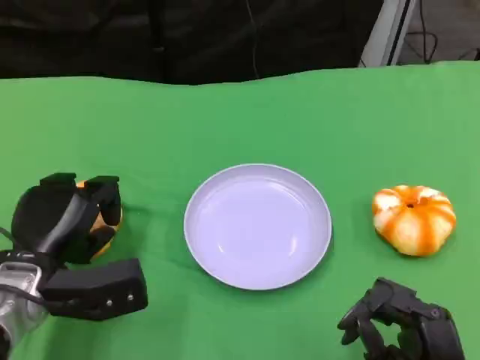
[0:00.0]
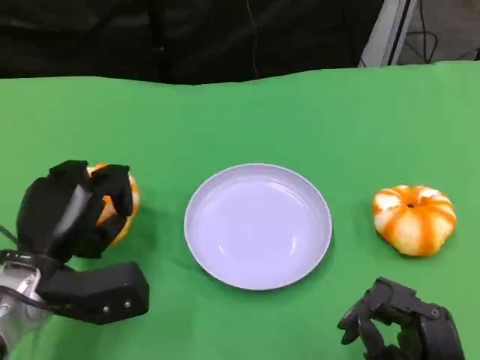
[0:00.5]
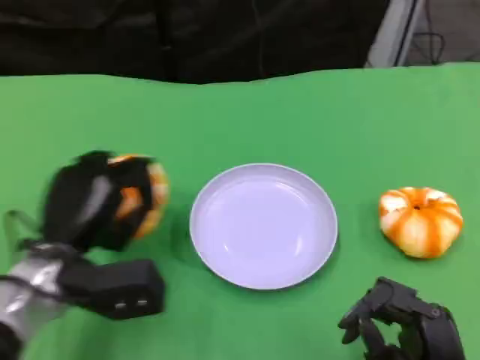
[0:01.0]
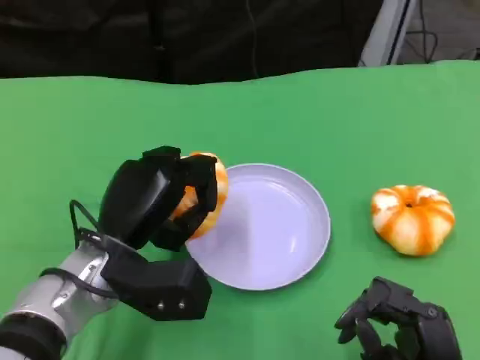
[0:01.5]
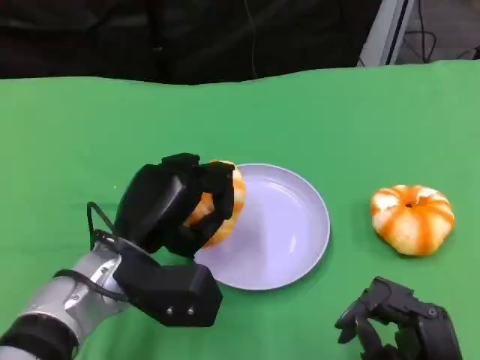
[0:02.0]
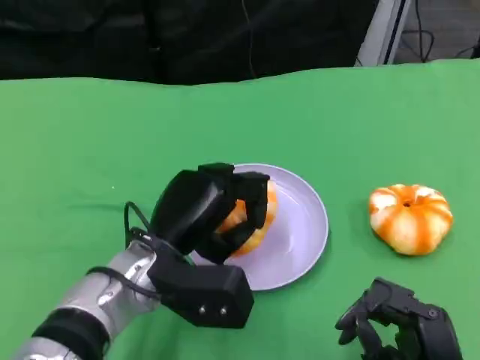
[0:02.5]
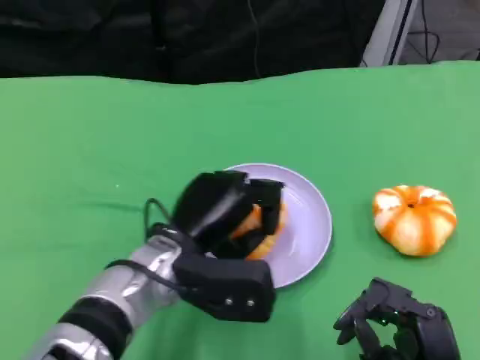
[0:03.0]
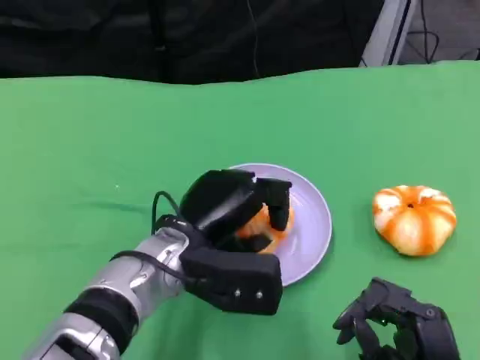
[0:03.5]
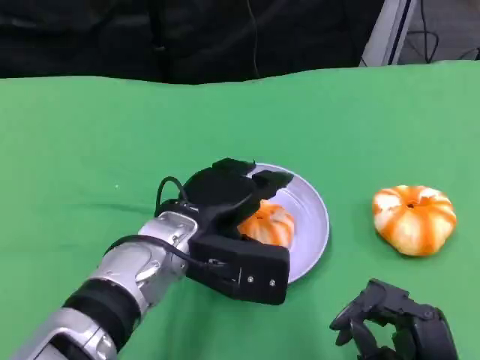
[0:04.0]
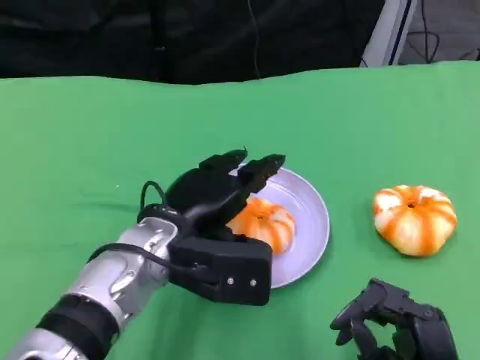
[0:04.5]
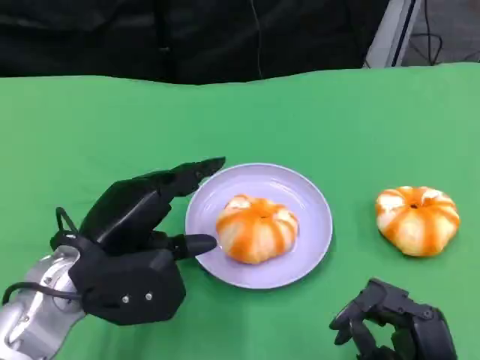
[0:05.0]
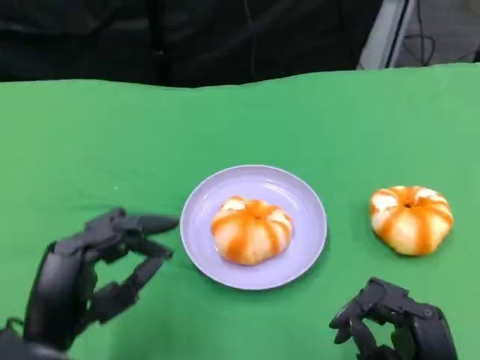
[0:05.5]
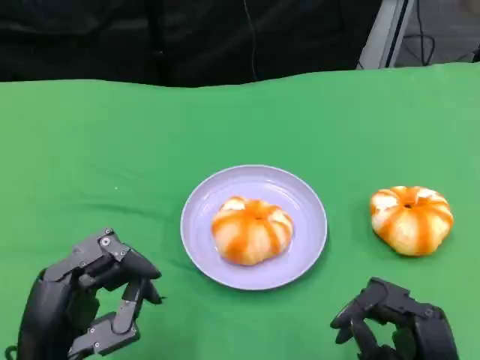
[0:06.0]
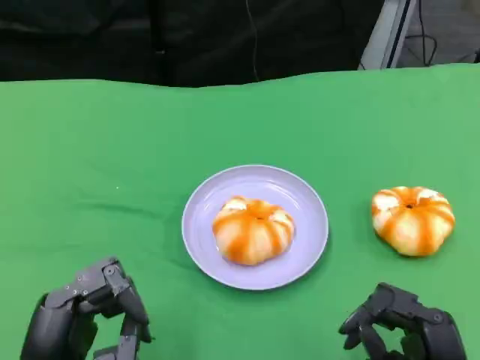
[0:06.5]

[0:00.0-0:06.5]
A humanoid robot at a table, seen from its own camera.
Task of the whole recording: Grasp the bread from the table and place it into the plate.
0:00.0 to 0:02.0: The left hand goes roughly 10 cm to the right.
0:04.5 to 0:06.5: The left hand goes some 20 cm backward and to the left.

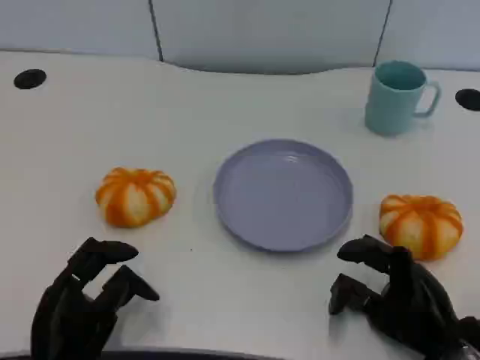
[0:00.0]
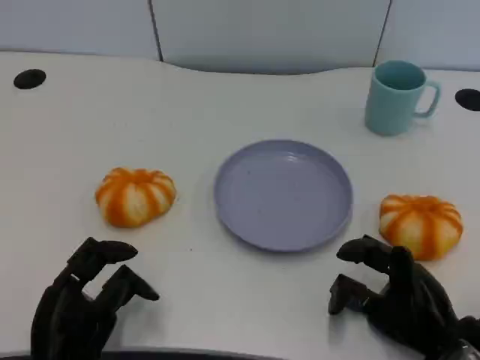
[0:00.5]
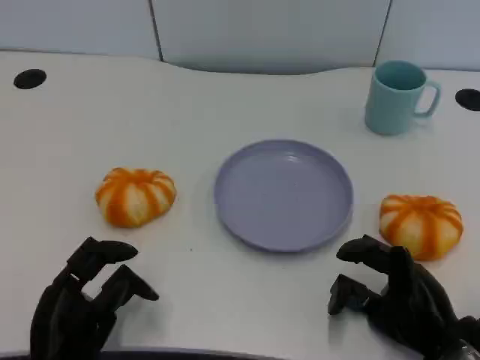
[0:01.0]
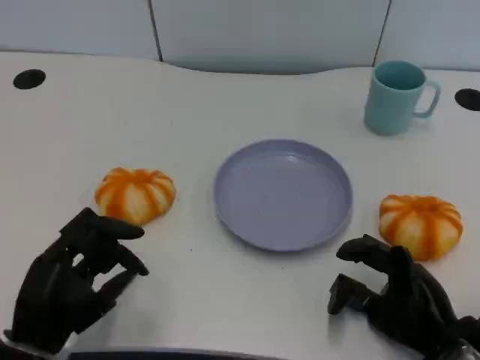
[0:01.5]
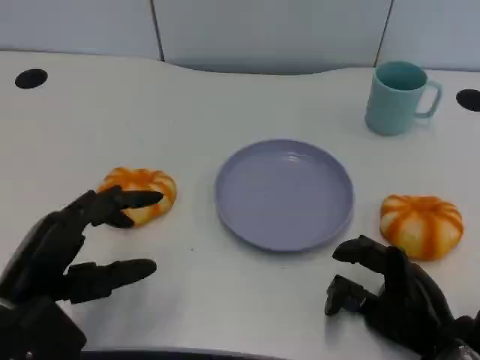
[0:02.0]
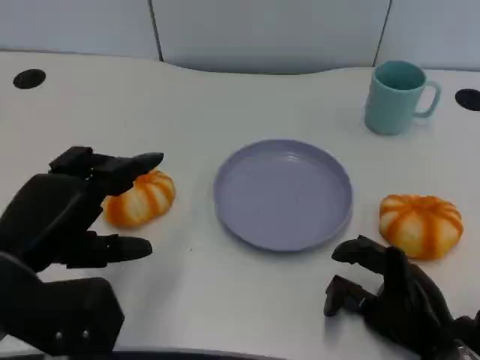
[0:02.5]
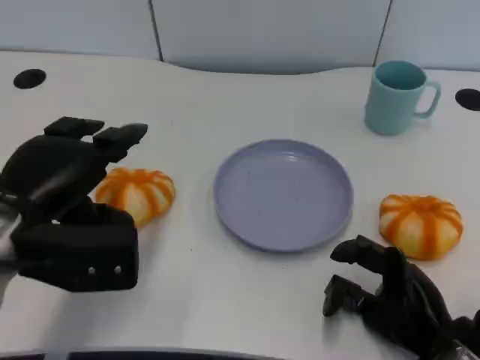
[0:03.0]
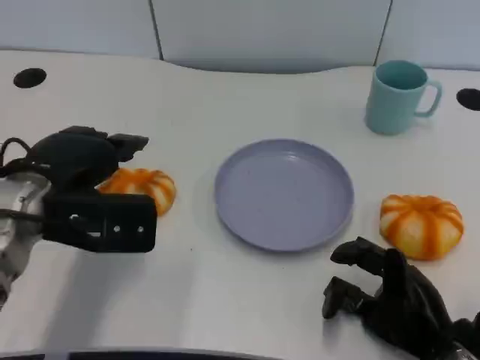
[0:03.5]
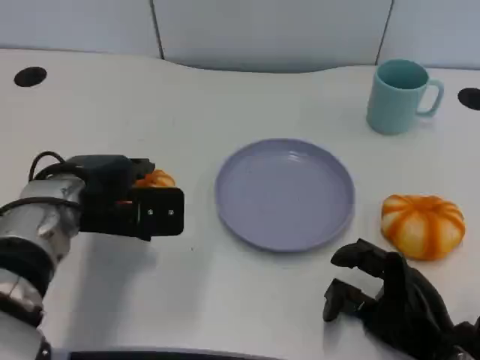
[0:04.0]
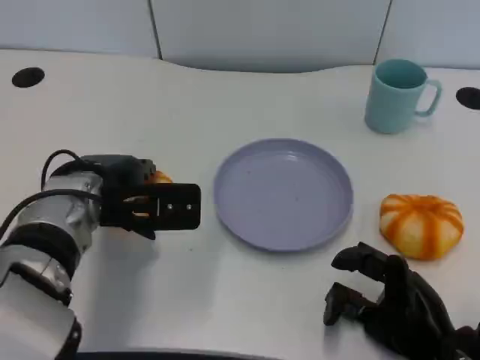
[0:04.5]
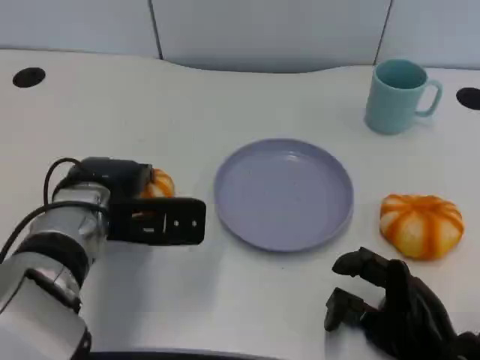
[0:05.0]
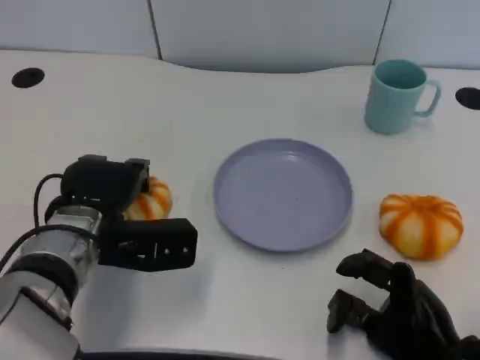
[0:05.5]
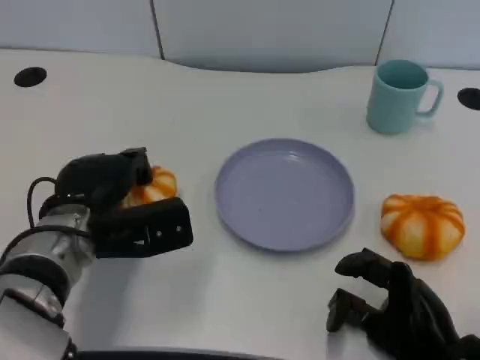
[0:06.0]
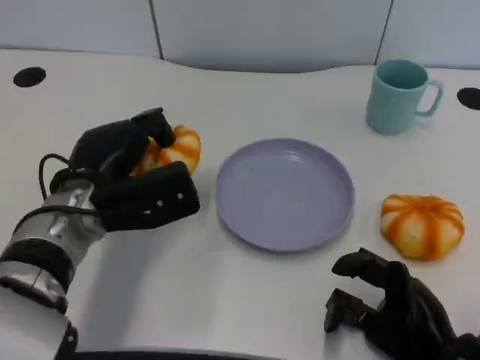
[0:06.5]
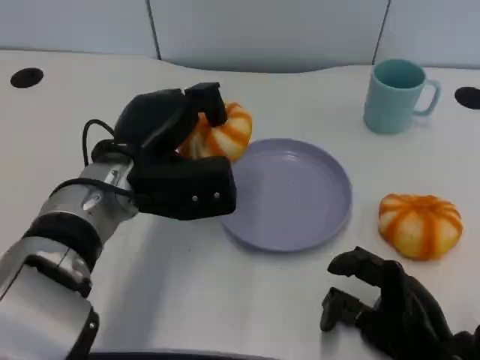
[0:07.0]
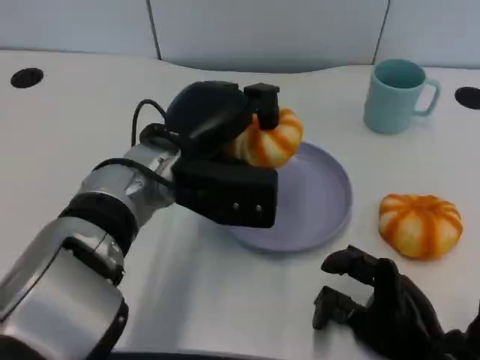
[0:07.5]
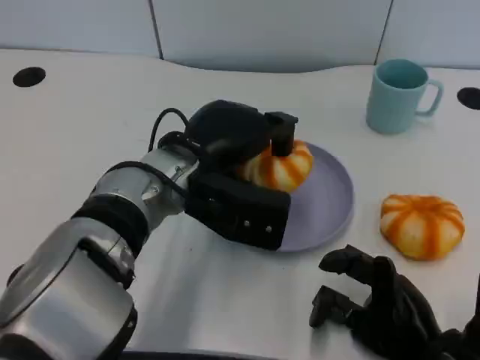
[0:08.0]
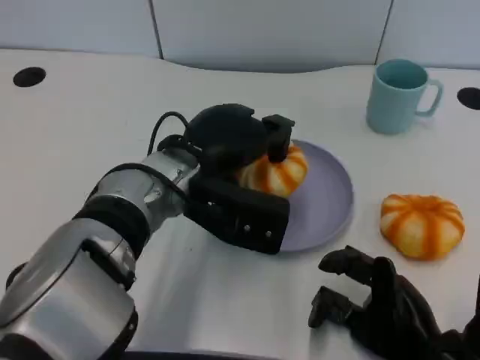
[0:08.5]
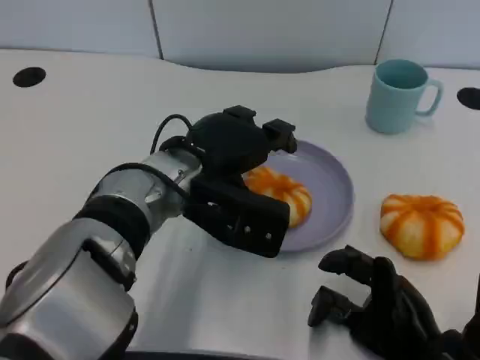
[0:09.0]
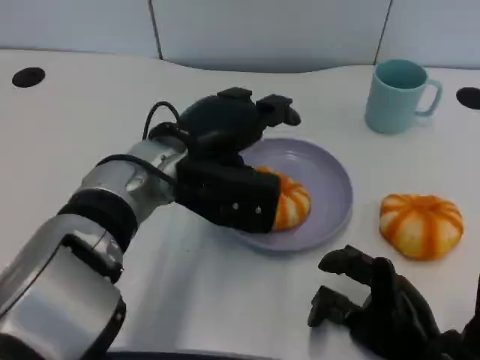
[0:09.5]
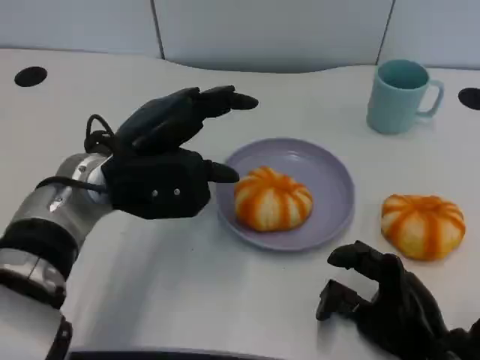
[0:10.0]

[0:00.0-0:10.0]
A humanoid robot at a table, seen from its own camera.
Task of the whole recording: Grasp the bread from the table and place it into the plate.
0:00.0 to 0:02.0: The left hand shifts some 10 cm upward.
0:02.0 to 0:04.0: The left hand is displaced forward and to the right by roughly 15 cm.
0:06.0 to 0:08.0: The left hand moves to the right and upward, approximately 10 cm.
0:08.0 to 0:10.0: The left hand is displaced to the left by approximately 5 cm.

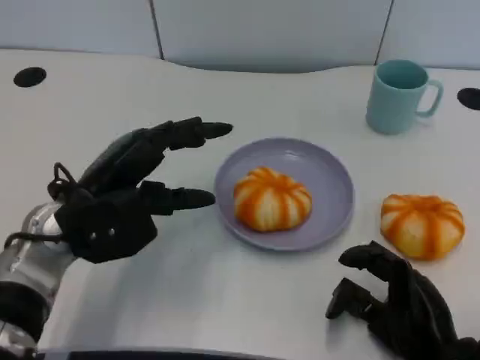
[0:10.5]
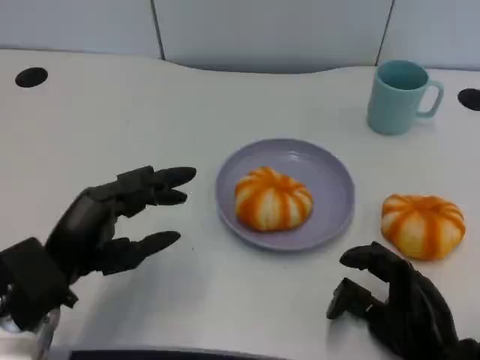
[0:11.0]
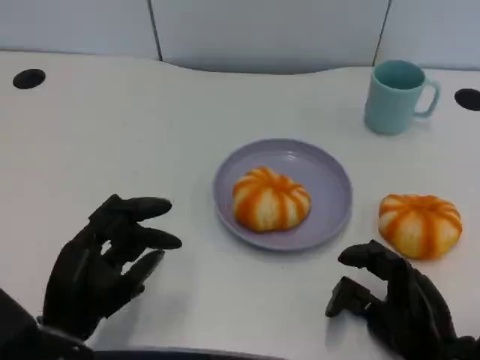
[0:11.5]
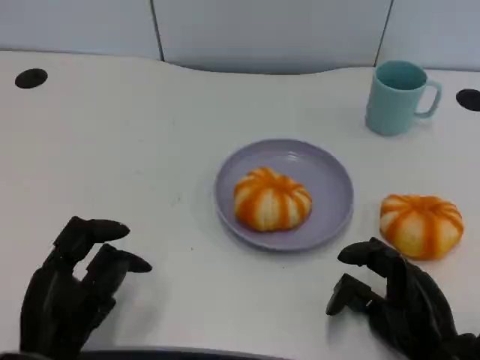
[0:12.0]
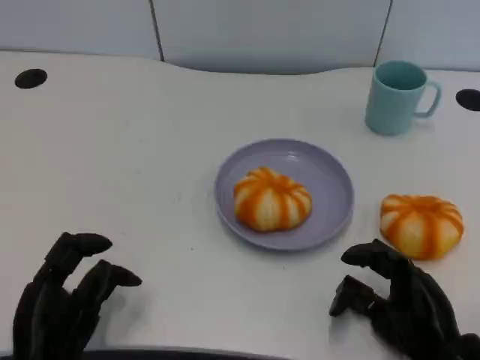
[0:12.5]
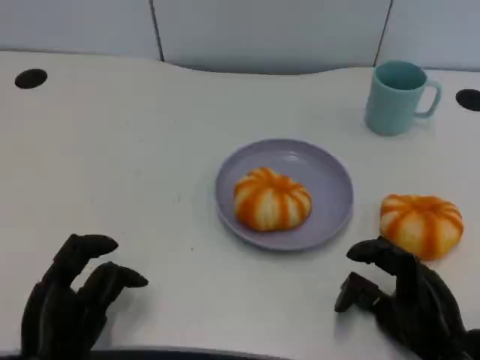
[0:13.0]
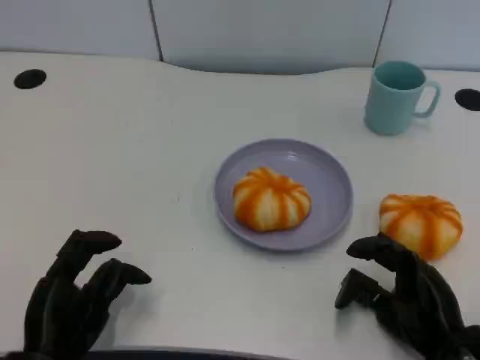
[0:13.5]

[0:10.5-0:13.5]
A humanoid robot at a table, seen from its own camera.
Task of the whole recording: Grasp the bread from the table and place it into the plate.
0:10.5 to 0:12.0: The left hand shifts roughly 15 cm backward and downward.
0:12.0 to 0:13.5: There are only small adjustments of the hands.

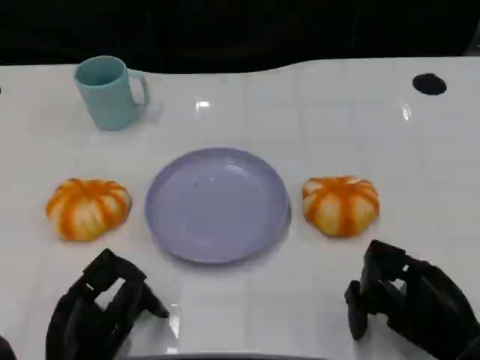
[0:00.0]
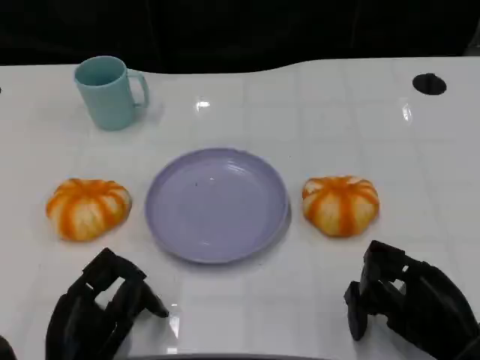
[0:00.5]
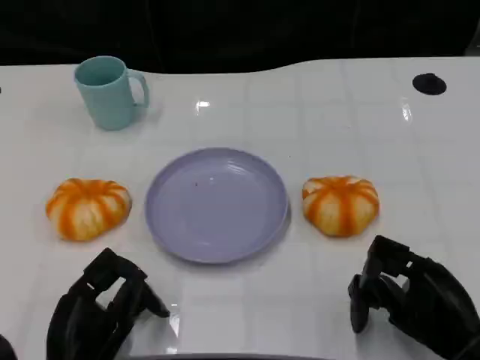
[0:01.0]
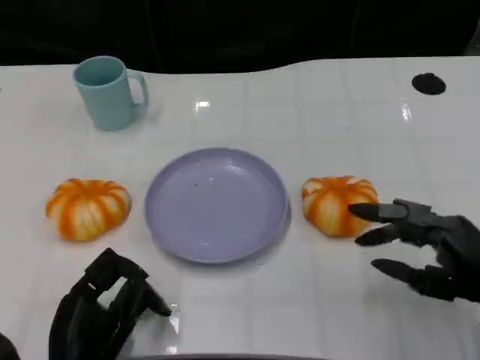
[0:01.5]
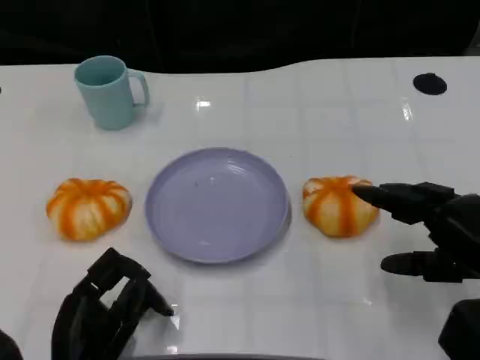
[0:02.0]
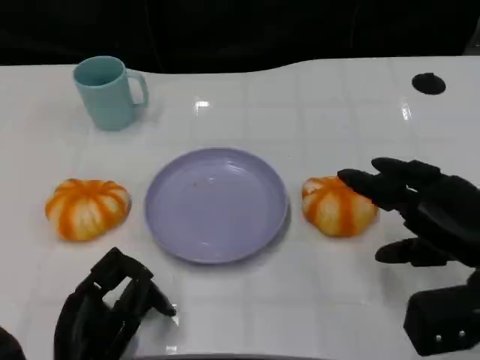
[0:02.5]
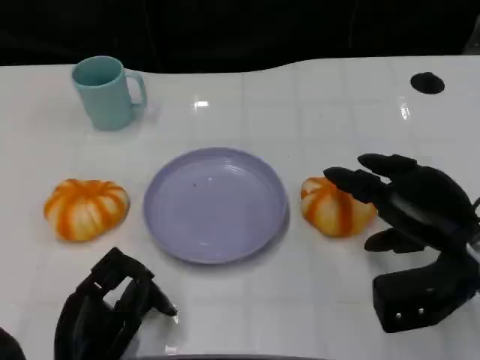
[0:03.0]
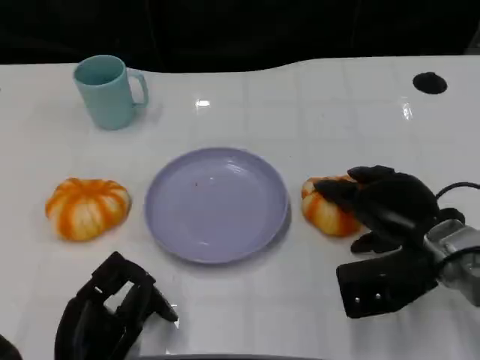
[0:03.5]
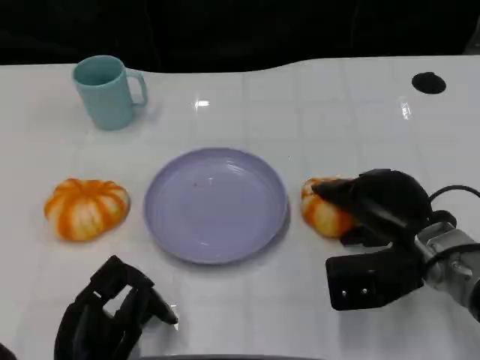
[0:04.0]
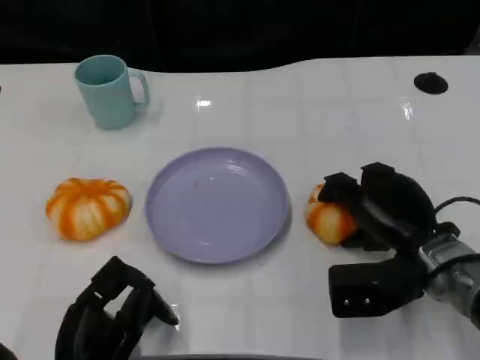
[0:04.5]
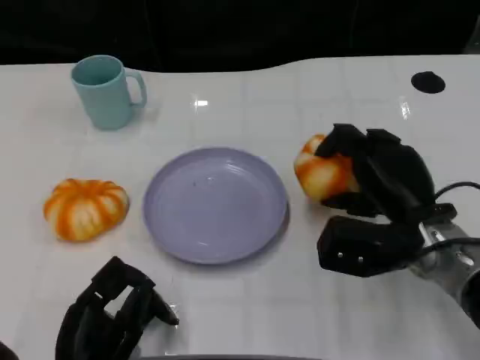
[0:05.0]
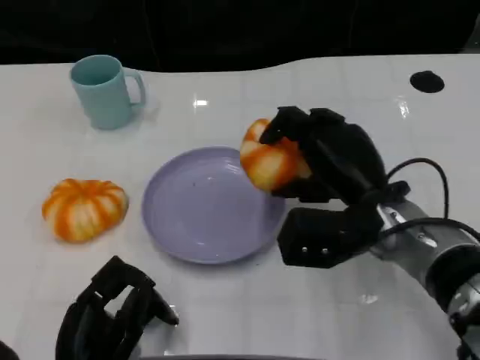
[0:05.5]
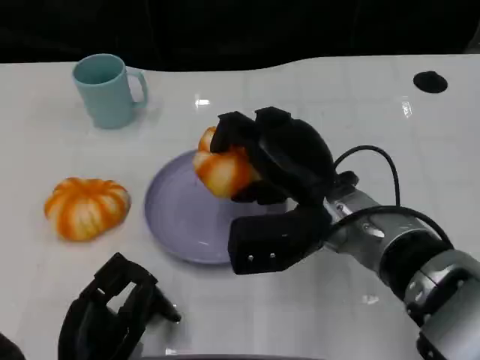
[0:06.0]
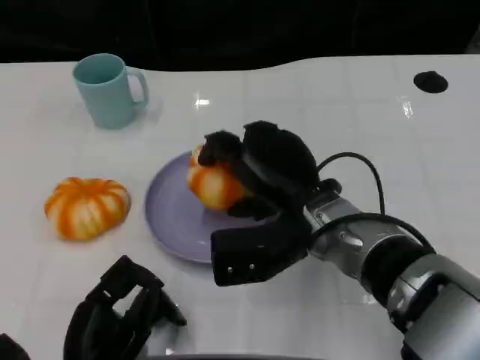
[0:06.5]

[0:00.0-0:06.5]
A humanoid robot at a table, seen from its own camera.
Task of the whole recording: Grasp the bread from the table and place it into the plate.
0:00.0 to 0:02.0: The right hand travels upward by approximately 5 cm.
0:02.0 to 0:04.5: The right hand heads to the left and forward, covering roughly 10 cm.
0:04.5 to 0:06.5: The right hand travels to the left and upward by roughly 15 cm.
